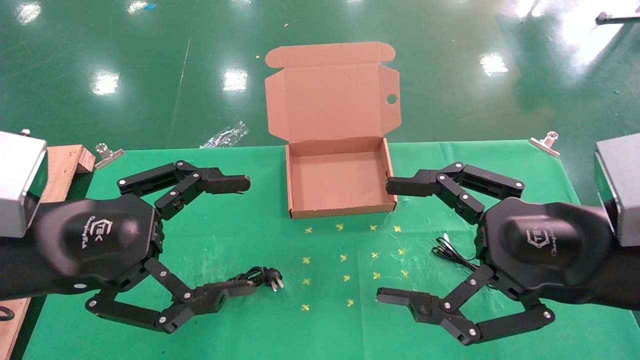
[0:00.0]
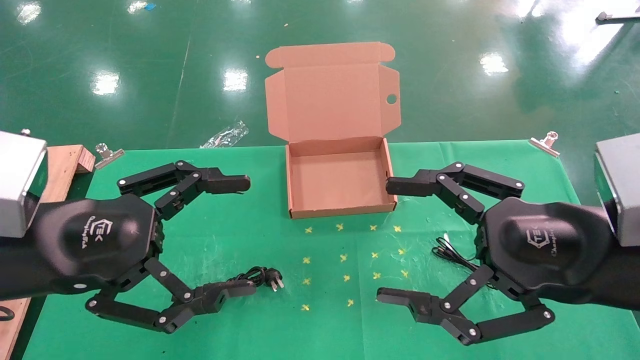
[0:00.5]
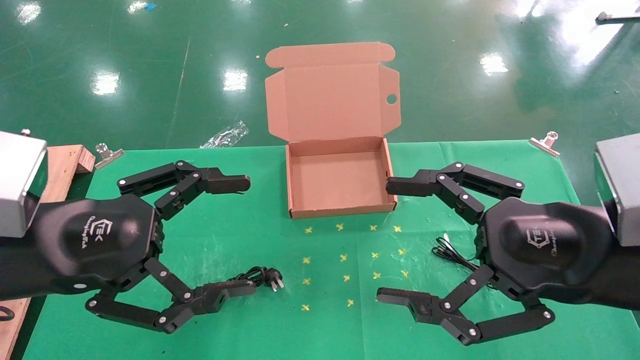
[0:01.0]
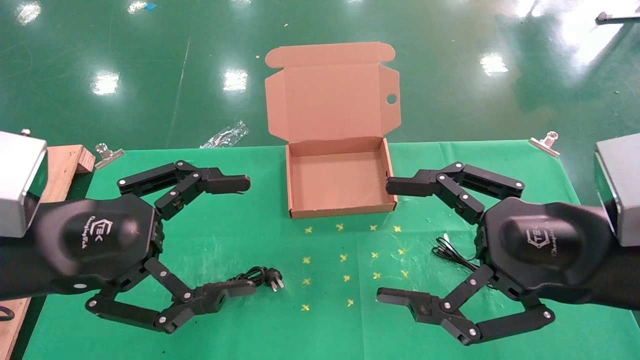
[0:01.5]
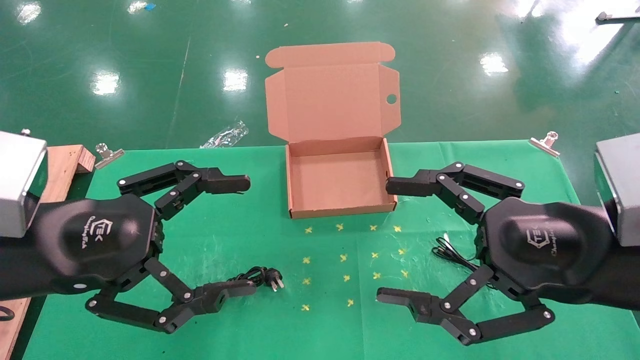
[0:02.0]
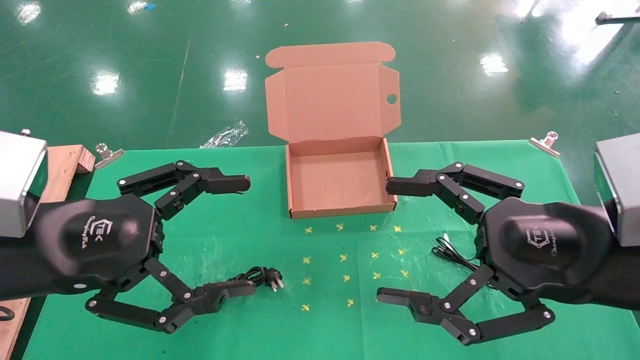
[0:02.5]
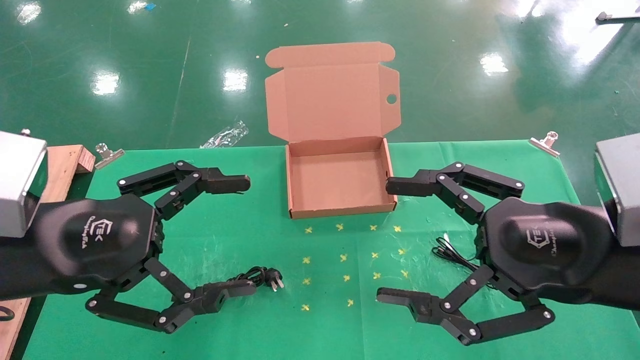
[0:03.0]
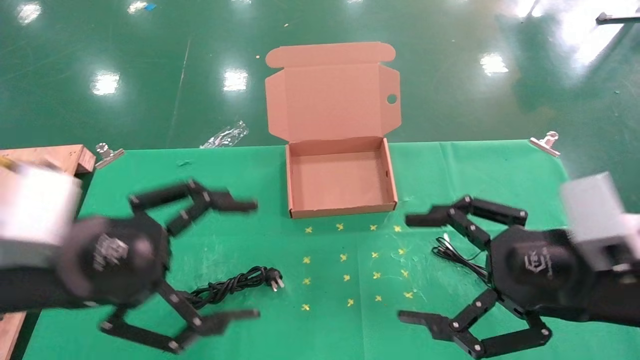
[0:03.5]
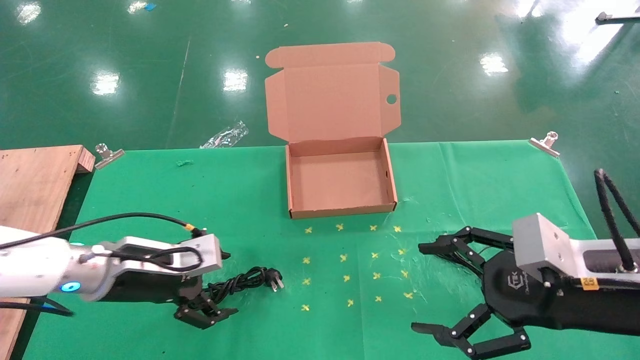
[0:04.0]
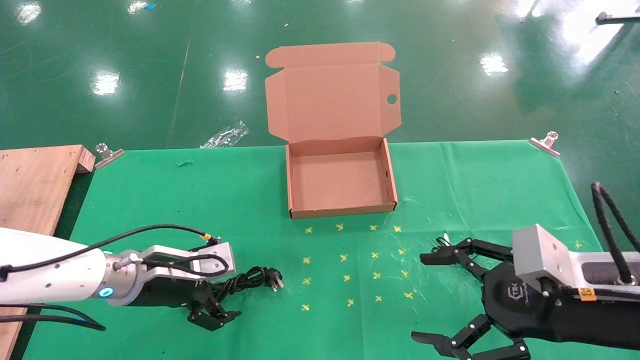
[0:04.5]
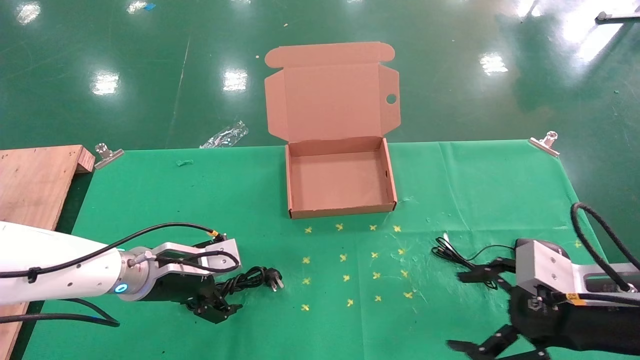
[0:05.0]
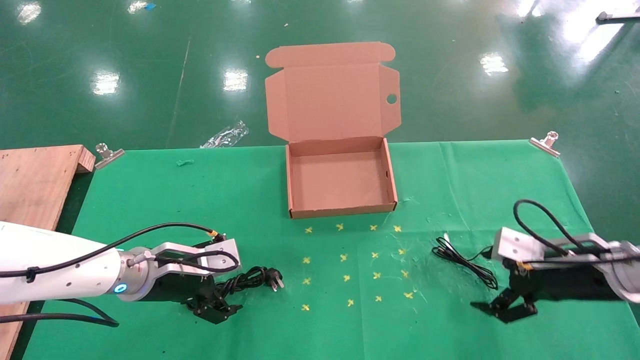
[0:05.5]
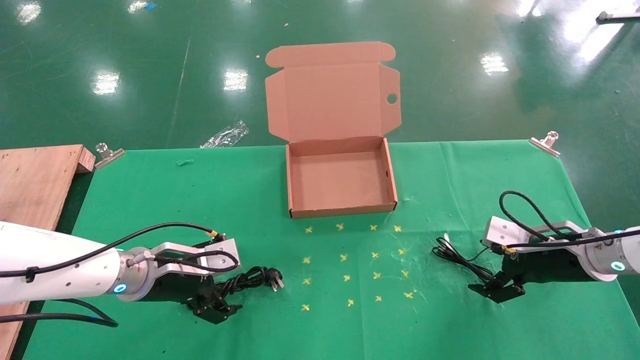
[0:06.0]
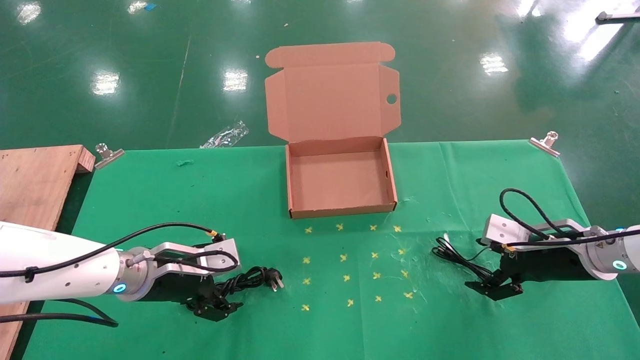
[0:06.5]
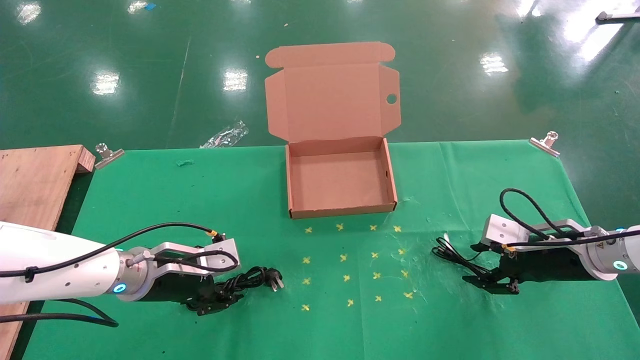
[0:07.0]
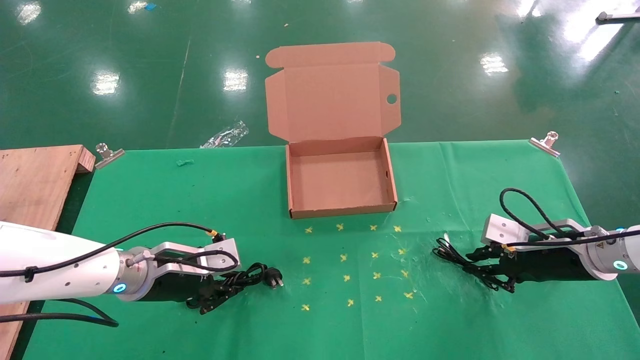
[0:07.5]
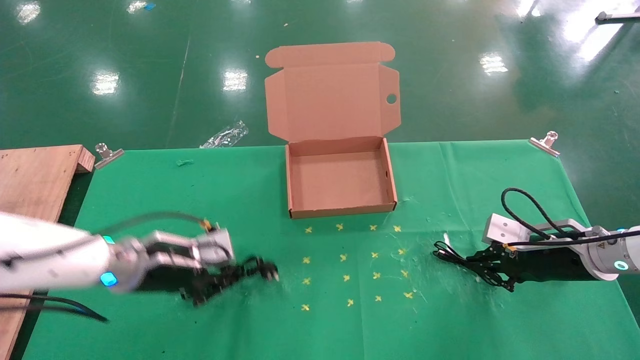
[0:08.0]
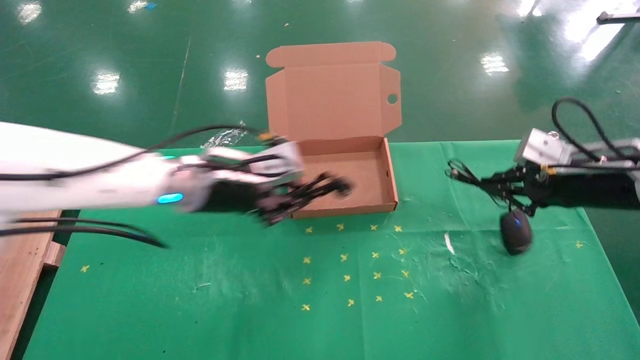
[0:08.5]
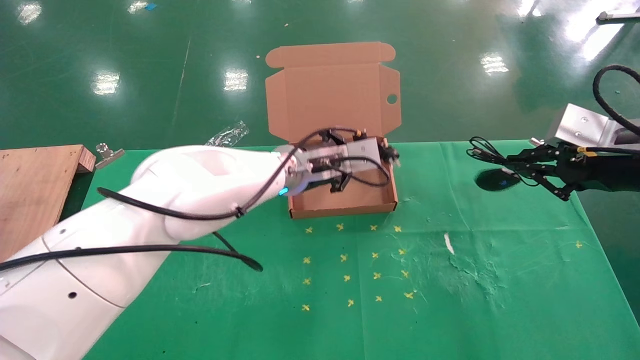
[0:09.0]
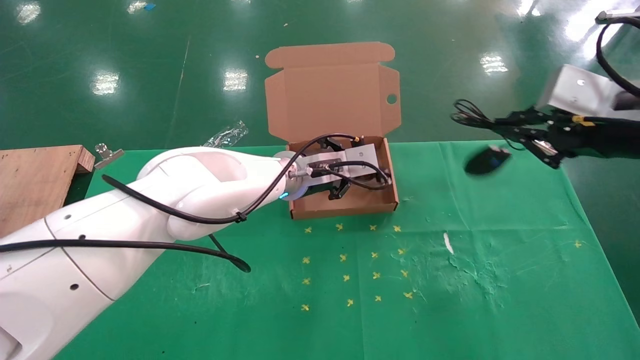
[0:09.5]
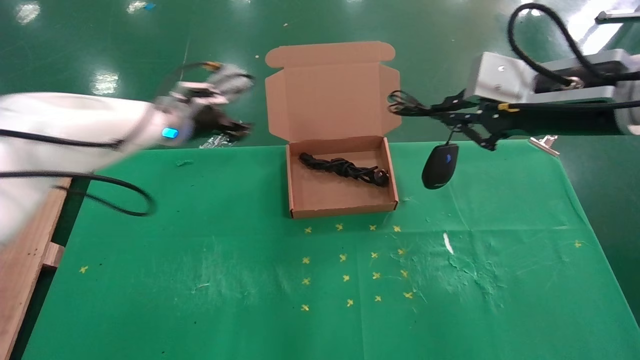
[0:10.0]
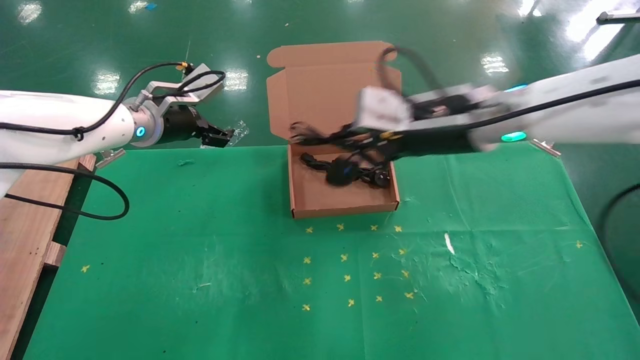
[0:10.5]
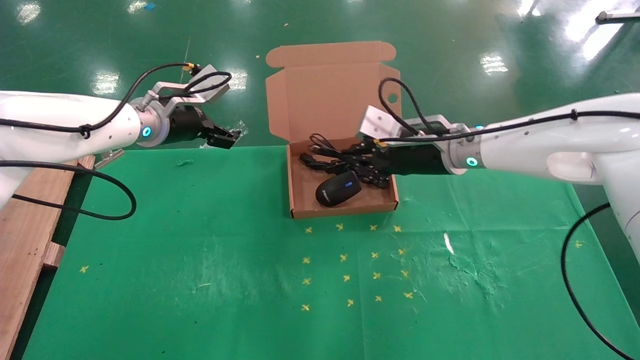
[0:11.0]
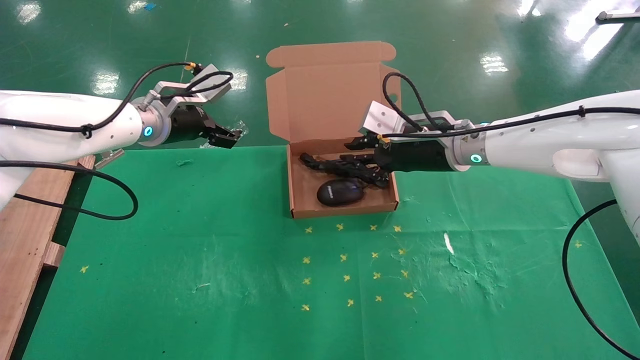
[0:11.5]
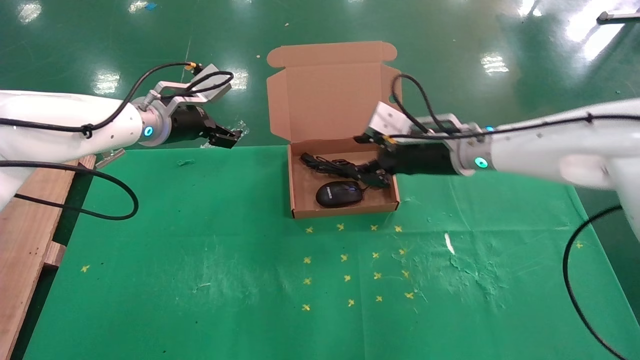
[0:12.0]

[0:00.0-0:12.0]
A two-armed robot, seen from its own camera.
Task of the whole recording: grasp data cable left put into box grasp mouse right put into box.
Step, 0:04.0 to 0:07.5: Simultaneously pick up the mouse and power cord from the accessory packaging area.
Step, 0:08.0 to 0:11.5: Place the mouse and power cord into the box.
0:00.0 to 0:02.0: Neither gripper changes place.
0:02.0 to 0:04.0: The left gripper heads downward and forward, covering approximately 15 cm, while the right gripper travels downward by about 5 cm.
0:04.0 to 0:06.0: The right gripper heads forward, downward and to the right, covering roughly 20 cm, while the left gripper changes place by approximately 5 cm.
0:06.0 to 0:08.0: The left gripper closes up. Meanwhile the right gripper closes its fingers.
0:08.0 to 0:10.0: The left gripper moves upward and forward, about 20 cm, travels to the right and back again, some 20 cm each way, and opens up; the right gripper moves upward and to the left, about 25 cm.
0:10.0 to 0:12.0: The right gripper travels forward, downward and to the left by some 15 cm, and opens its fingers, while the left gripper opens up.

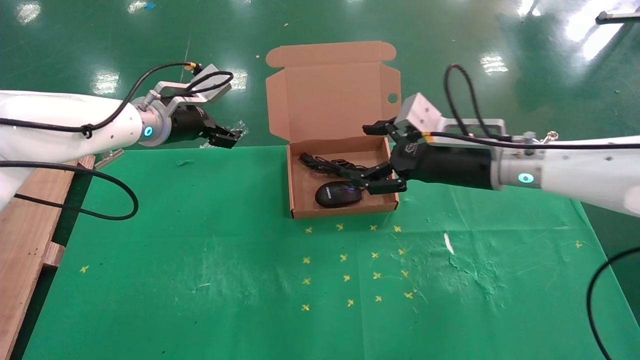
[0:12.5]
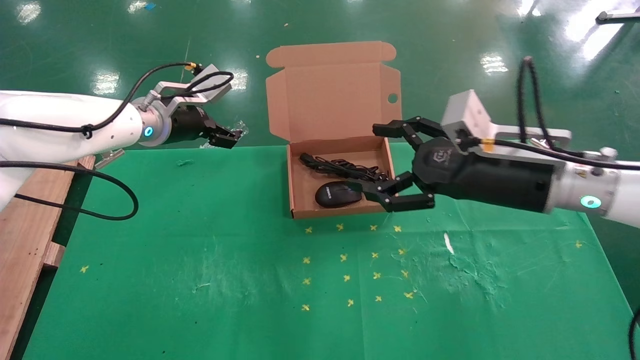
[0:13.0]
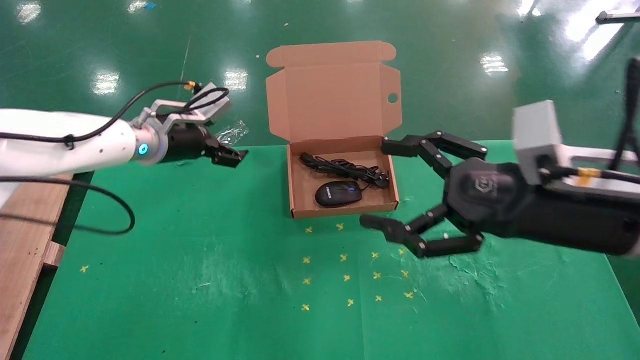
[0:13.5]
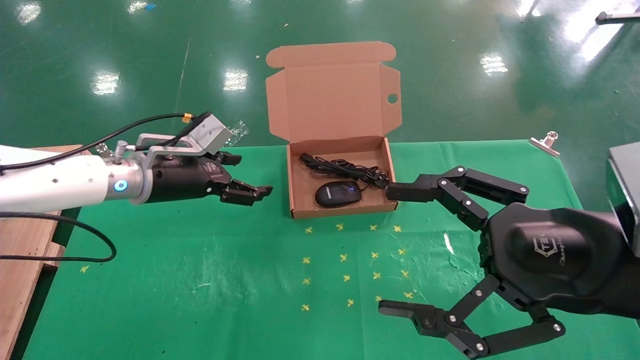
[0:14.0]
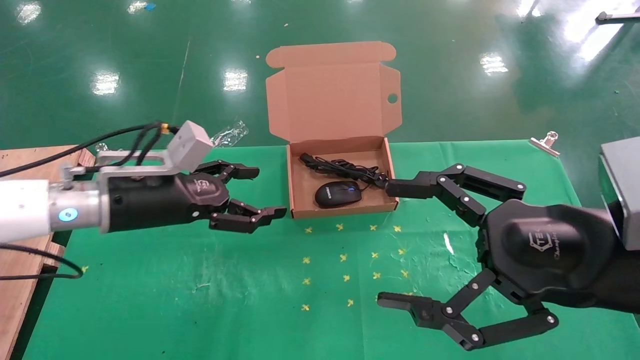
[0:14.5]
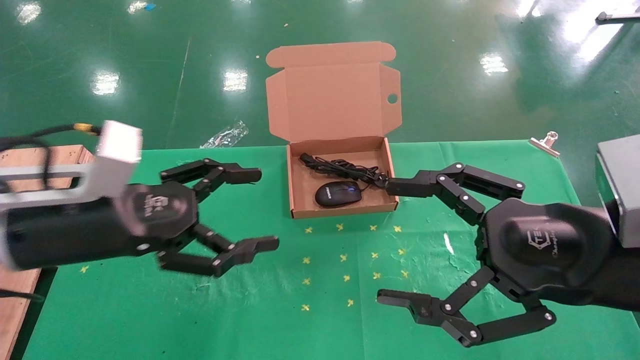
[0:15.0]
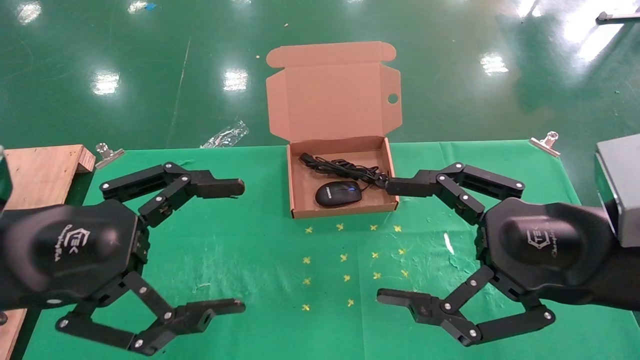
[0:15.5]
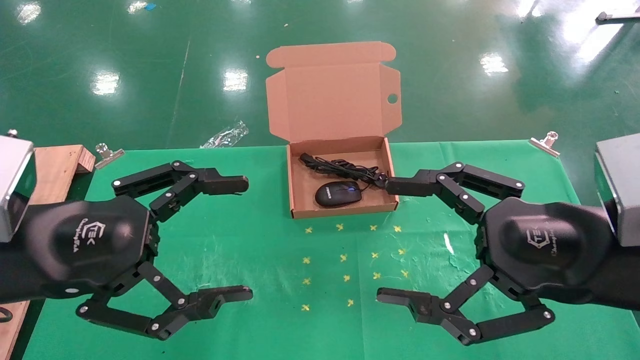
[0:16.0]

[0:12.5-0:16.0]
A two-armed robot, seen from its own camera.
Task of the whole recording: grasp data cable left put into box grasp mouse right put into box.
0:12.5 to 0:14.5: The left gripper shifts approximately 15 cm backward and downward; the right gripper goes roughly 20 cm backward.
0:14.5 to 0:16.0: The left gripper moves backward, about 15 cm.
